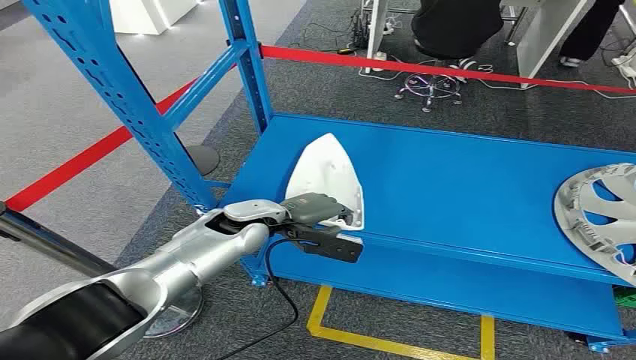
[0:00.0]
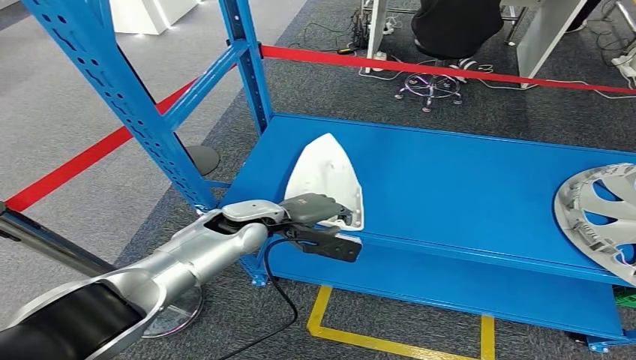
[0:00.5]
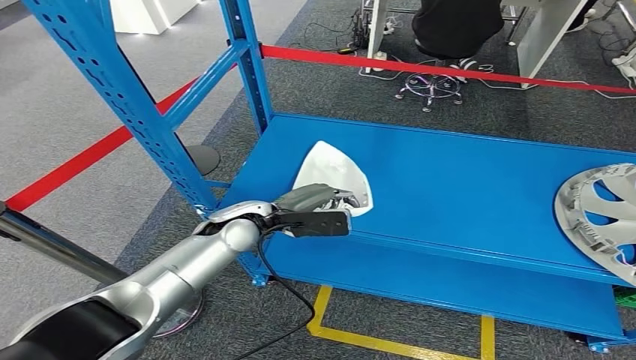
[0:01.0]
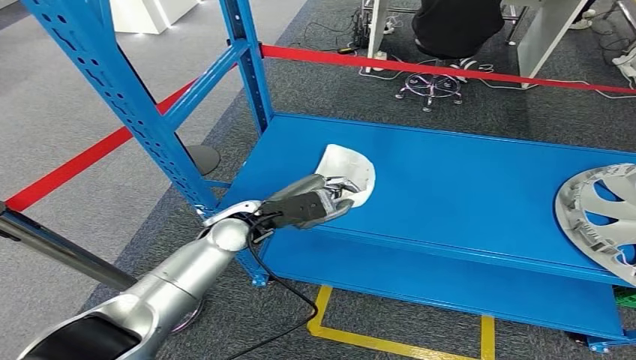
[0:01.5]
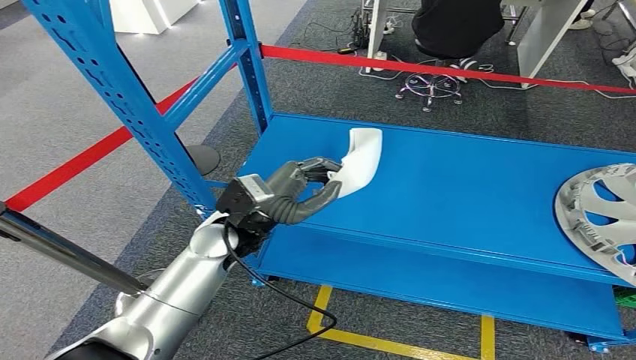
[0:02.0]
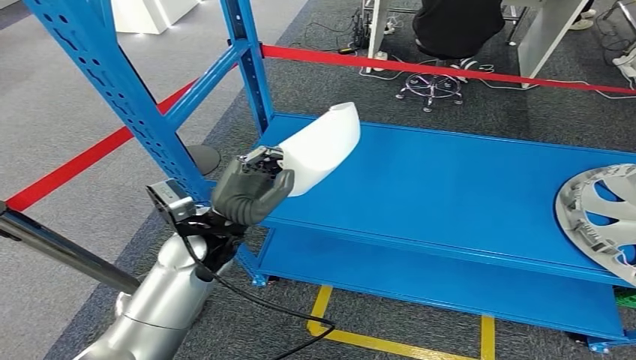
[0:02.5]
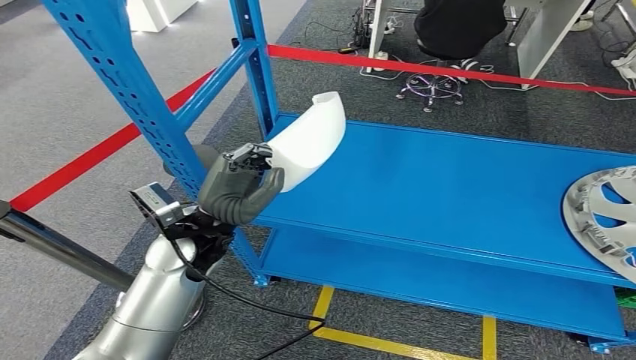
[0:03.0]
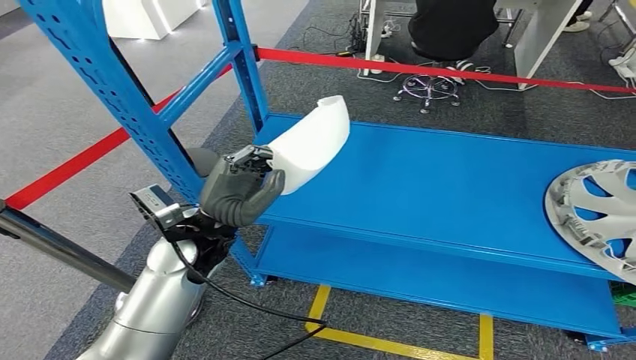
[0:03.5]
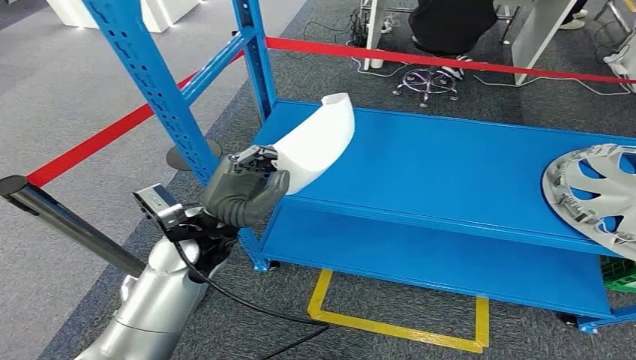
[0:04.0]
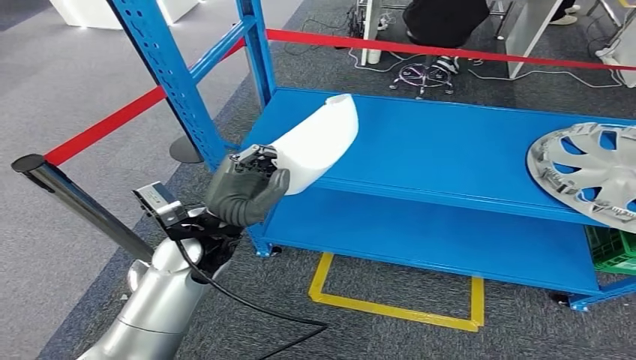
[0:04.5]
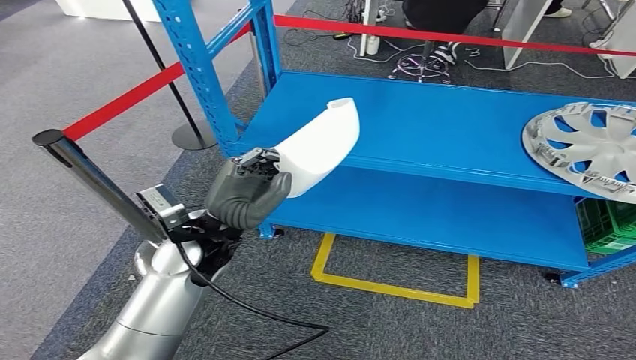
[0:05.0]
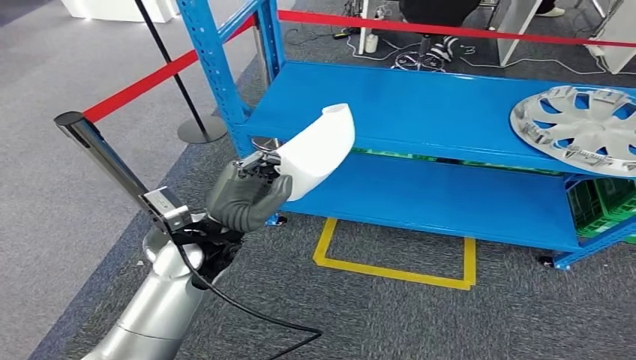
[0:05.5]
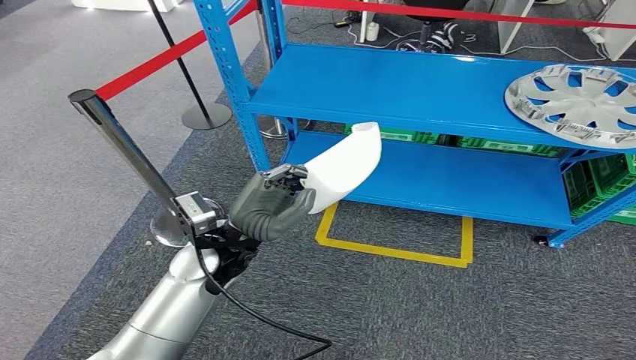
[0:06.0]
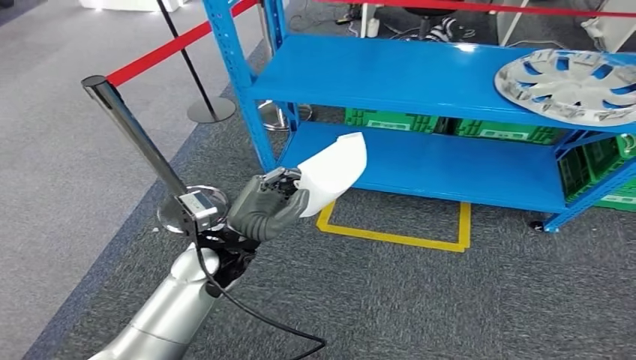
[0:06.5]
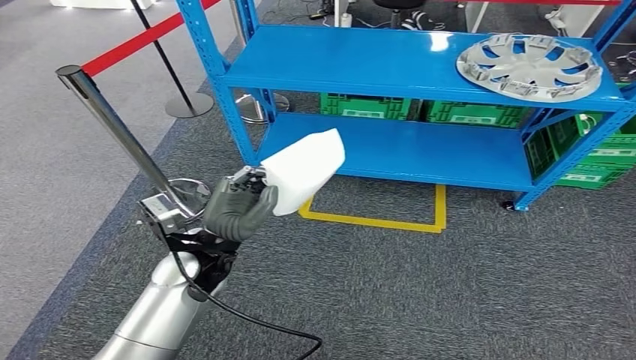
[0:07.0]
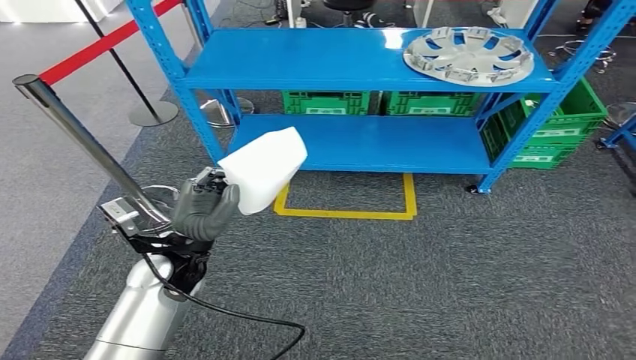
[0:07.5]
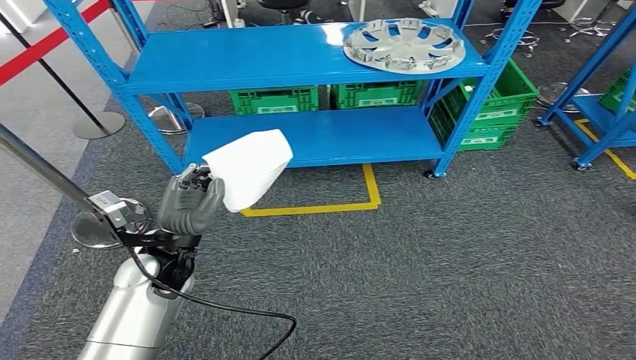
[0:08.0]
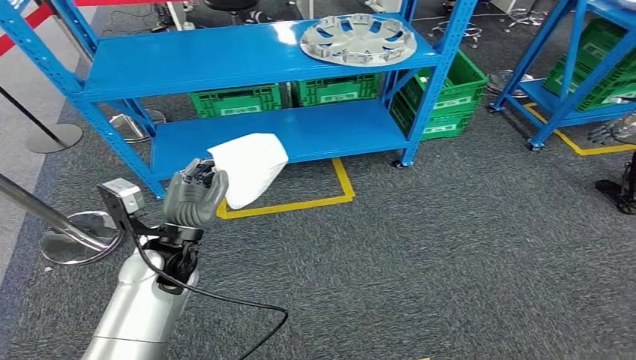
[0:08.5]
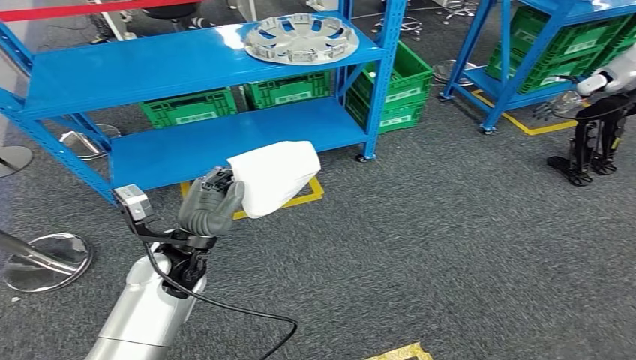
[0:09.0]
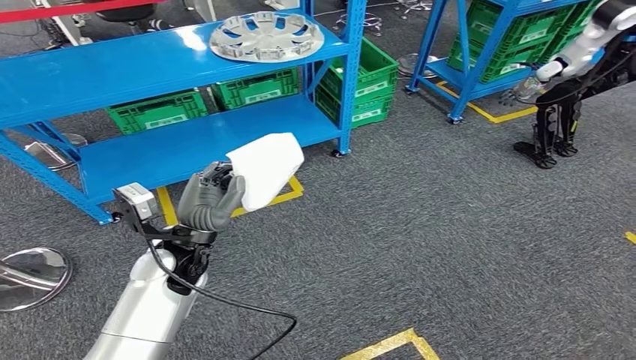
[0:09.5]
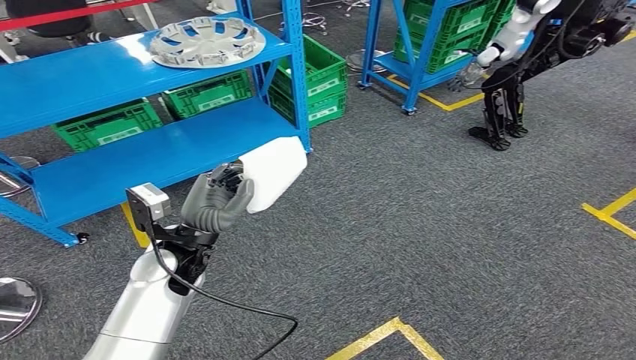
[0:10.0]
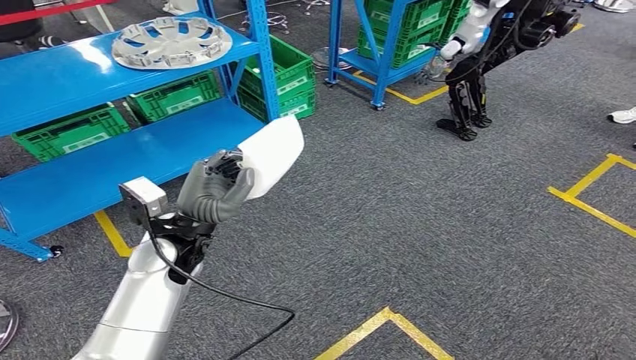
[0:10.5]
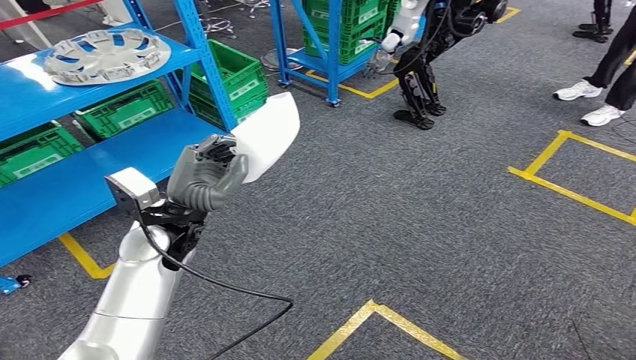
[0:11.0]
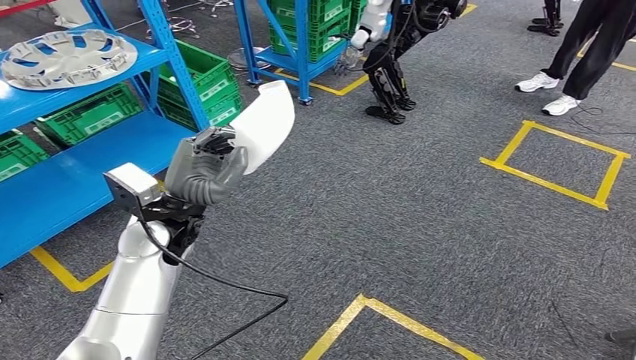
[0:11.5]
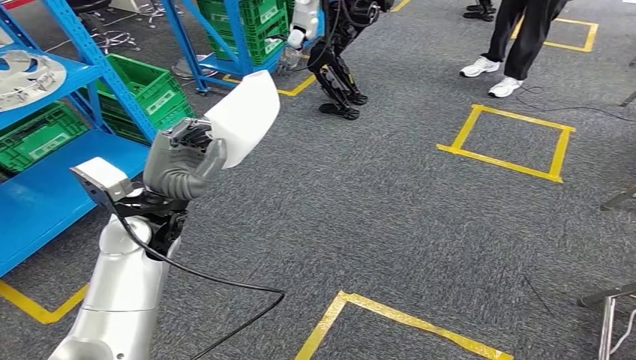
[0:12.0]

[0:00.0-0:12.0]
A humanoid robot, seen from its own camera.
Step, 0:00.0 to 0:04.0: Pick up the small component from the shelf.

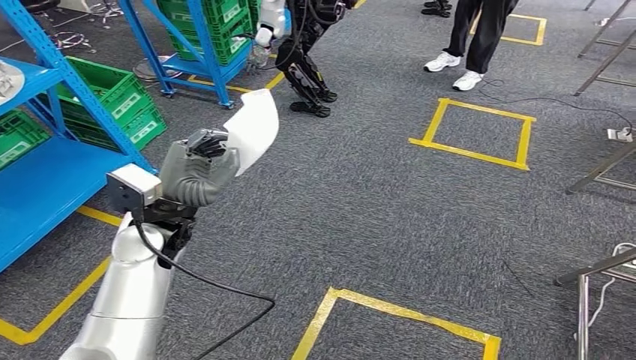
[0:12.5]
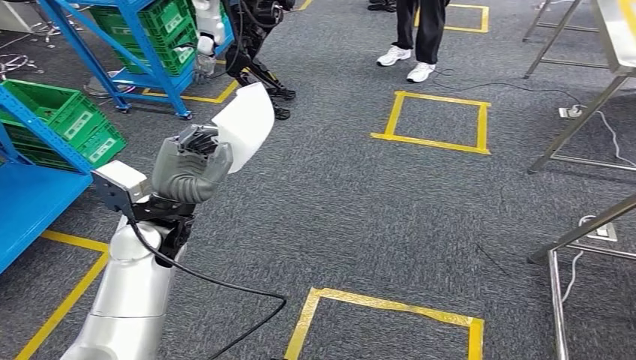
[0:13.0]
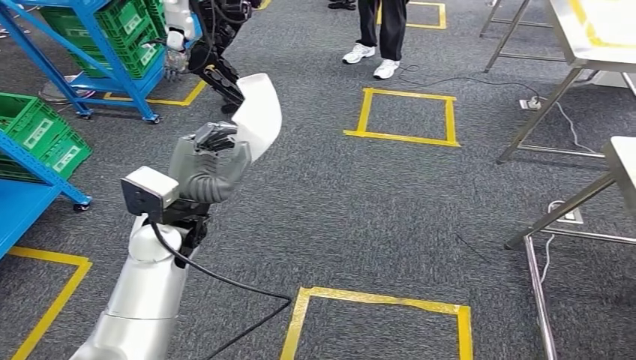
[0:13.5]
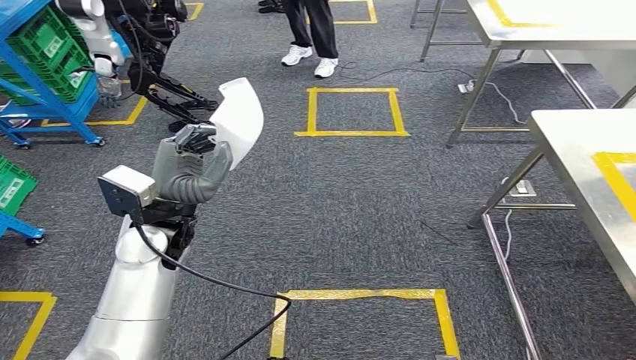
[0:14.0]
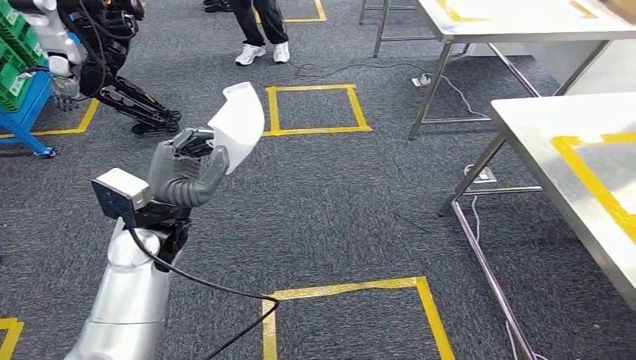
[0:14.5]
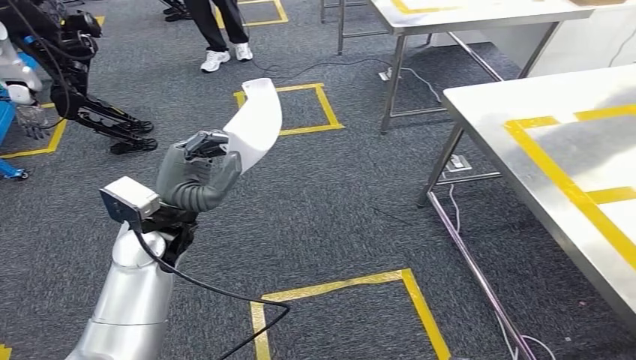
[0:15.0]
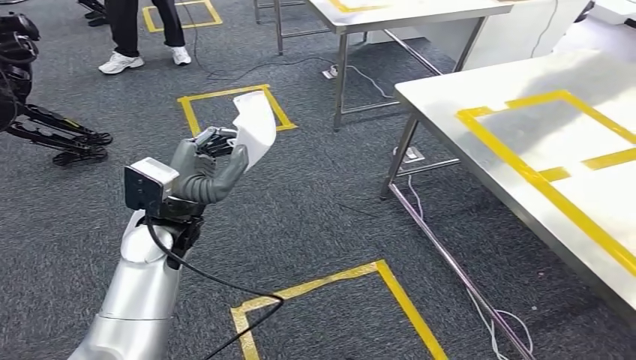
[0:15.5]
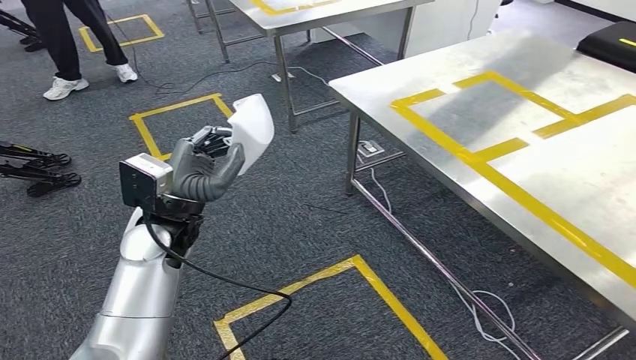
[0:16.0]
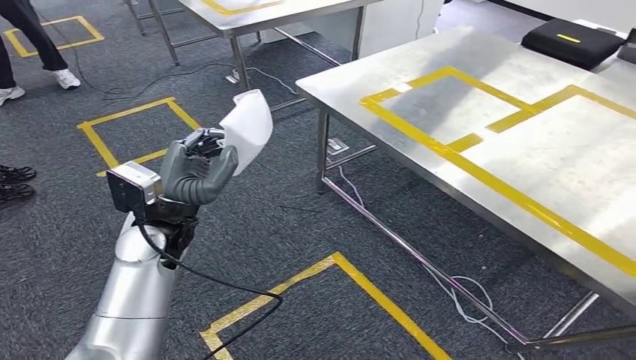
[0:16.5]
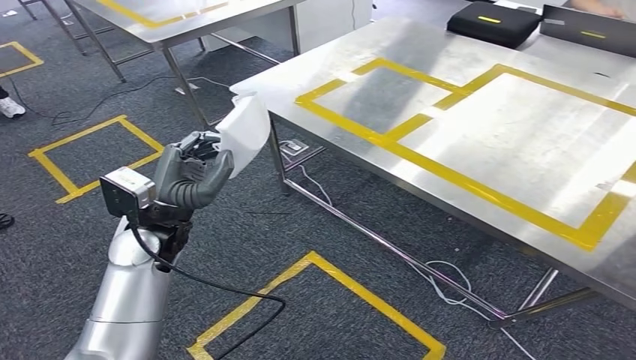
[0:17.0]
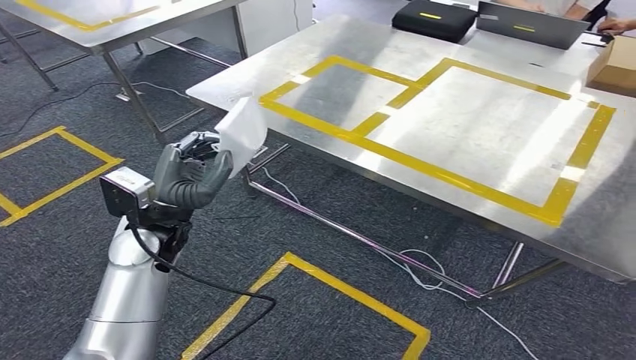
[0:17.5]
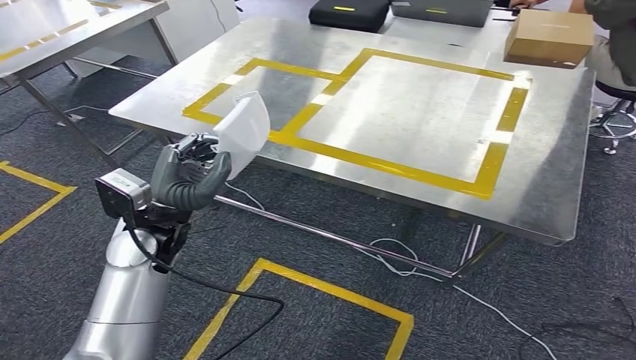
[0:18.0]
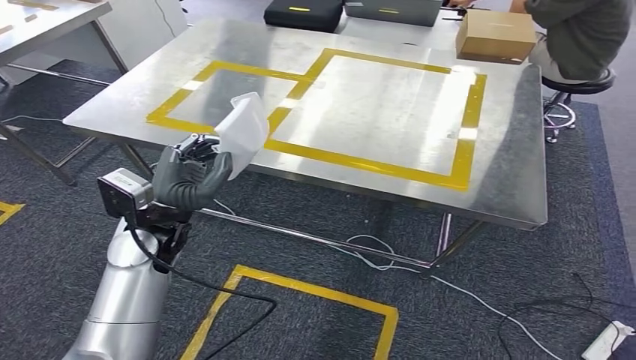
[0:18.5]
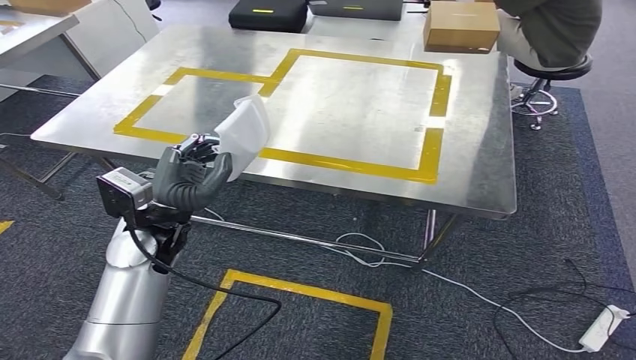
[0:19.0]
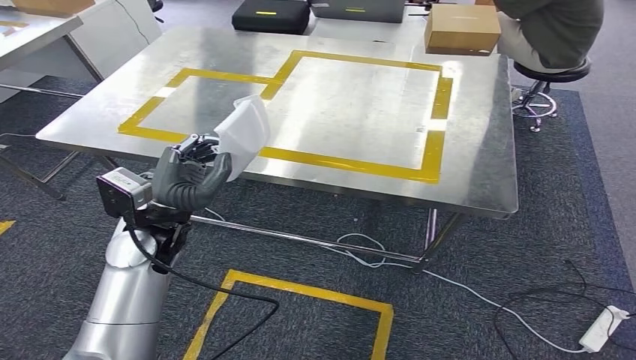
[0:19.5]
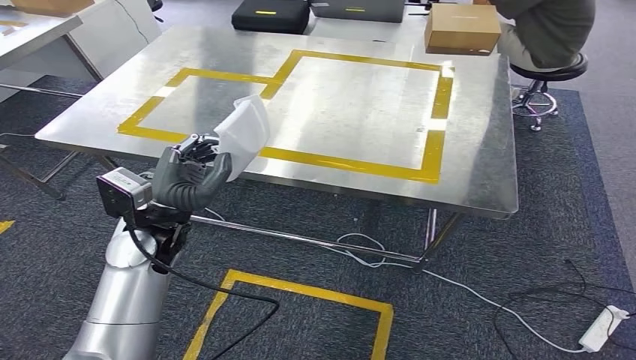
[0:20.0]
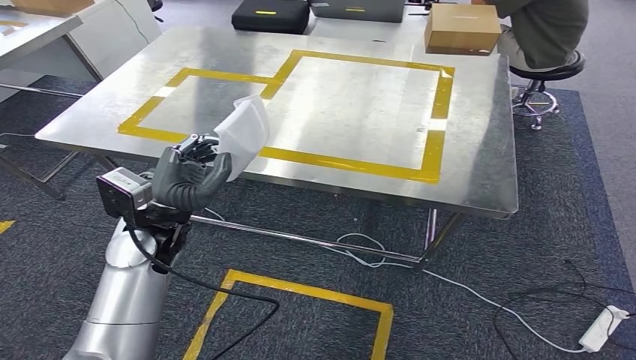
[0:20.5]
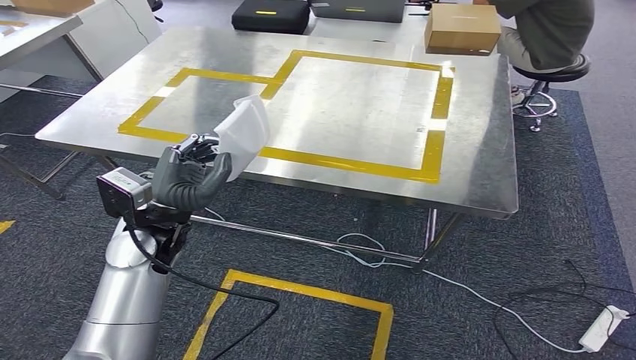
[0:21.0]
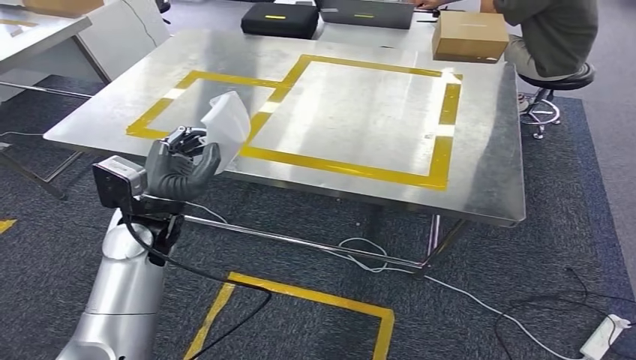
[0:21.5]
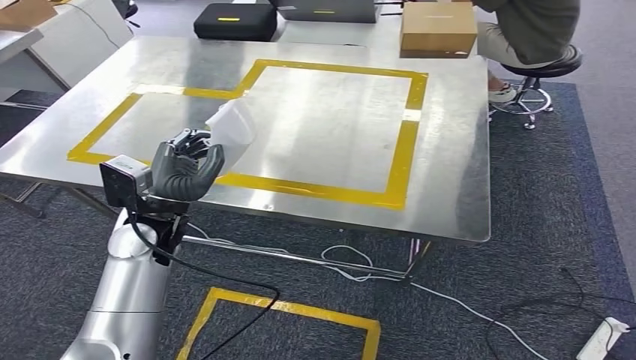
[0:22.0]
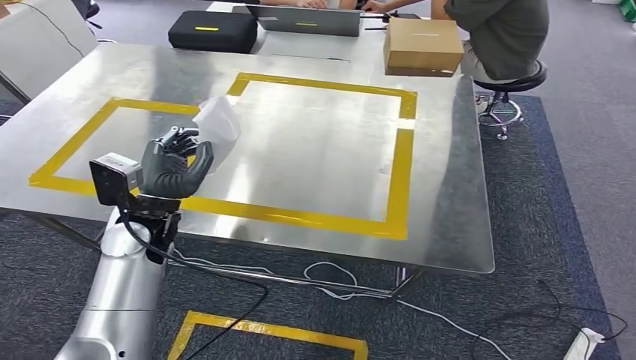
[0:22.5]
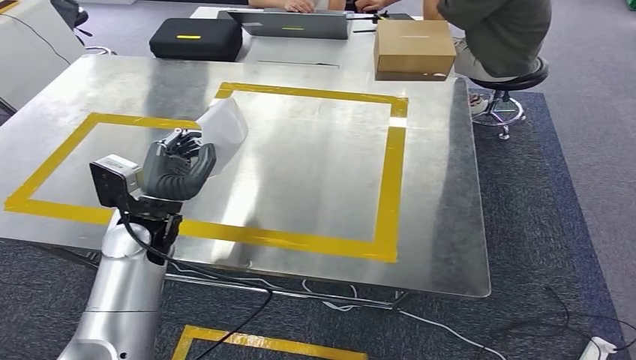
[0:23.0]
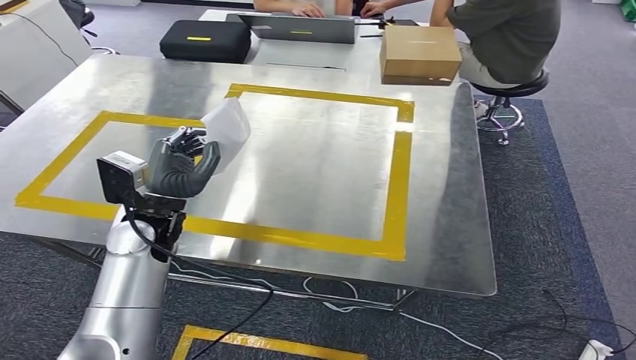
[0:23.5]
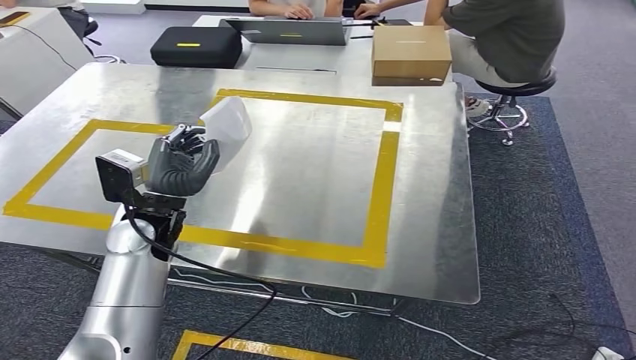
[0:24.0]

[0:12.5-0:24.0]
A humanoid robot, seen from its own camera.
Step, 0:12.5 to 0:20.0: Bring the small component to the front of the workbench.
